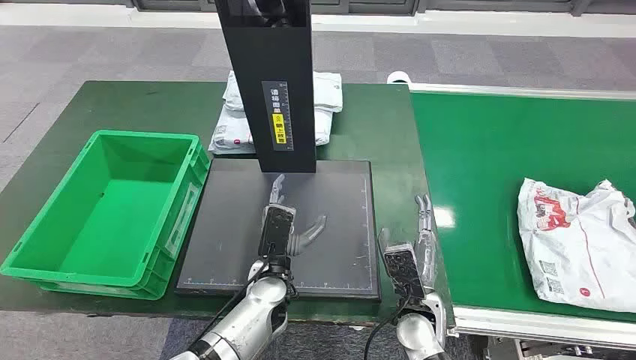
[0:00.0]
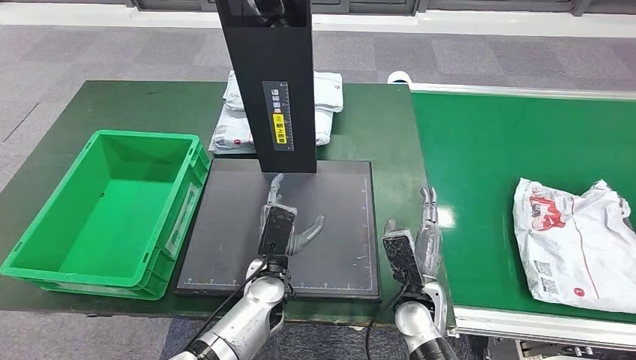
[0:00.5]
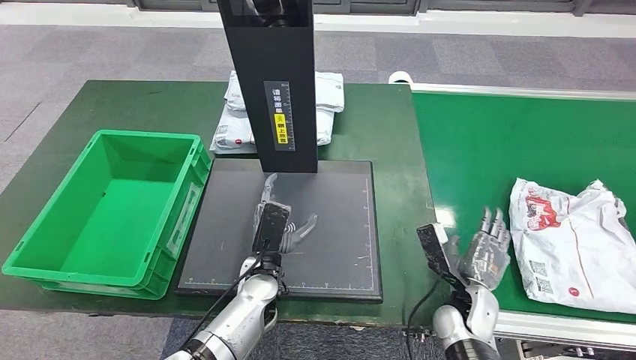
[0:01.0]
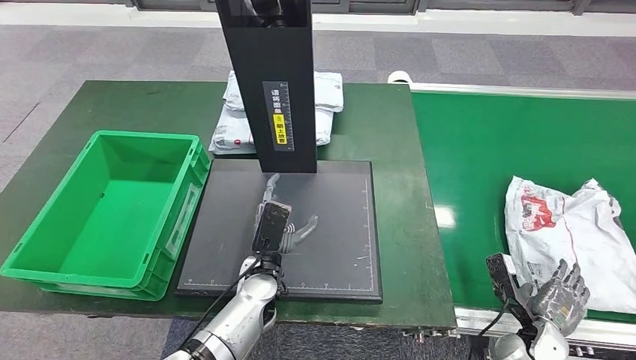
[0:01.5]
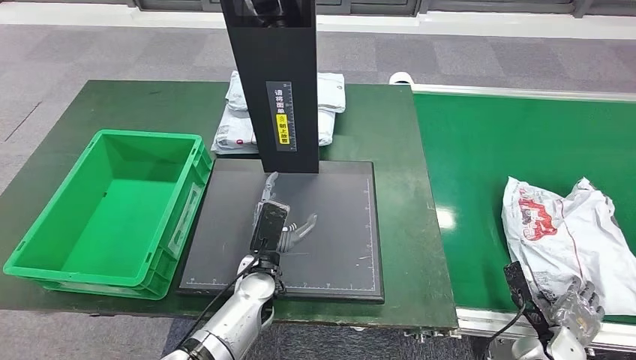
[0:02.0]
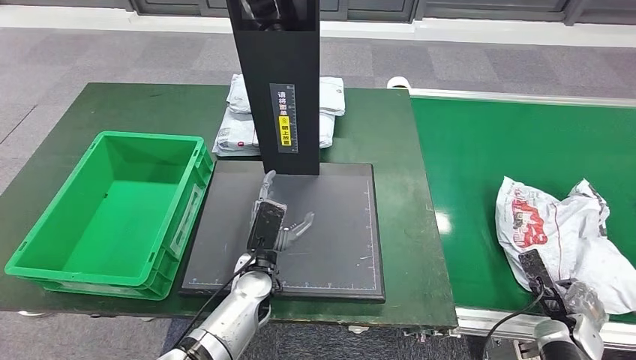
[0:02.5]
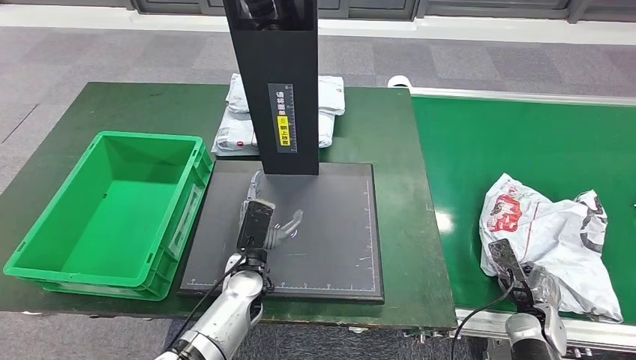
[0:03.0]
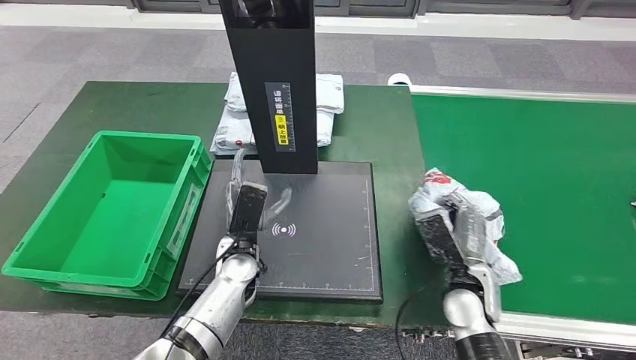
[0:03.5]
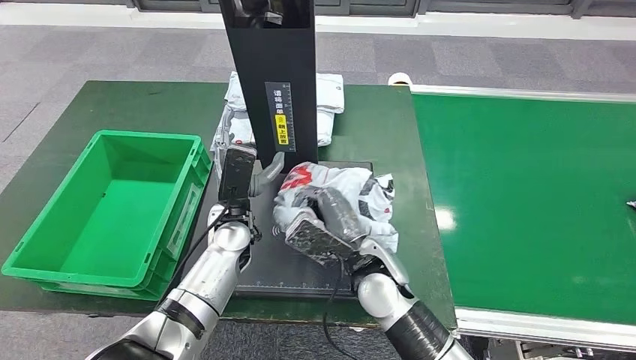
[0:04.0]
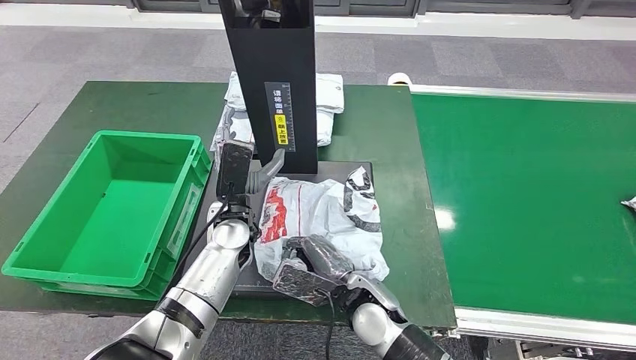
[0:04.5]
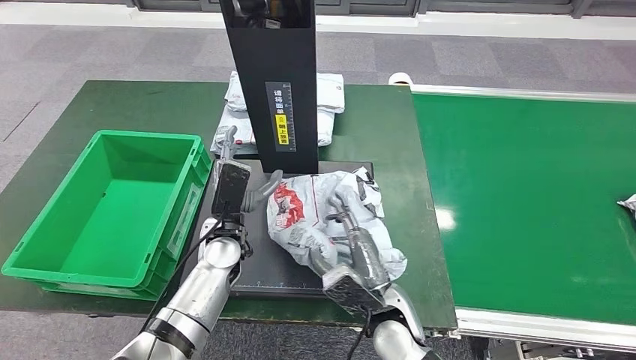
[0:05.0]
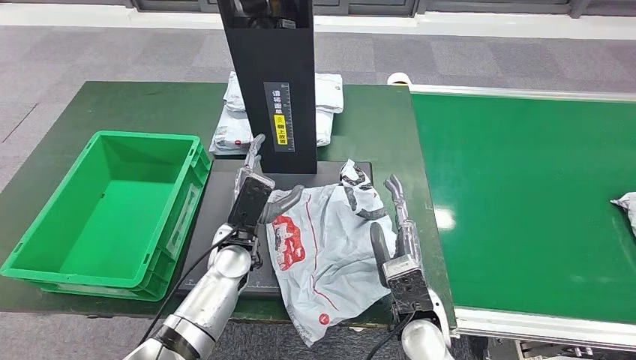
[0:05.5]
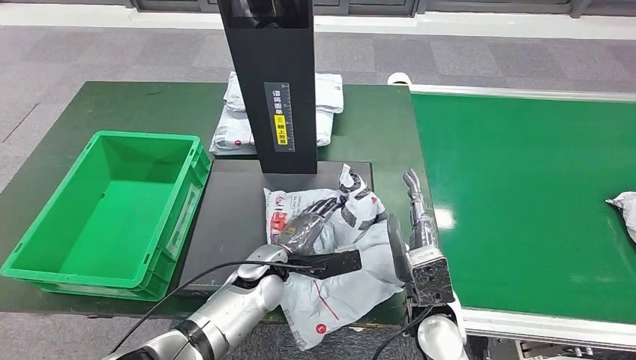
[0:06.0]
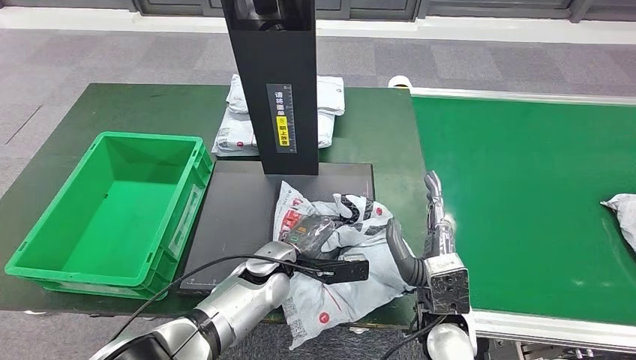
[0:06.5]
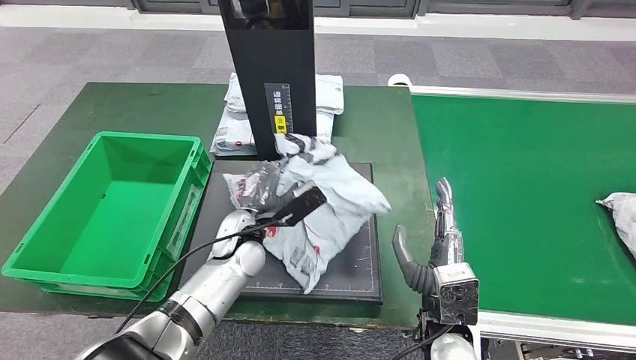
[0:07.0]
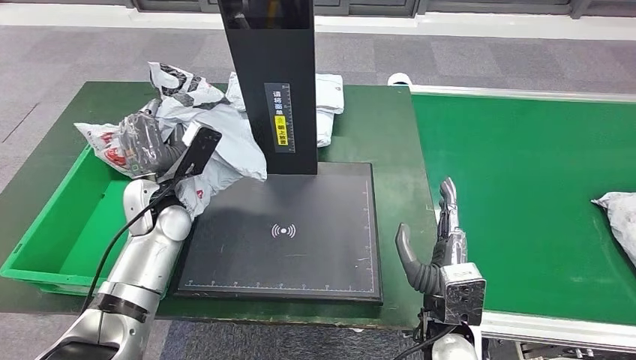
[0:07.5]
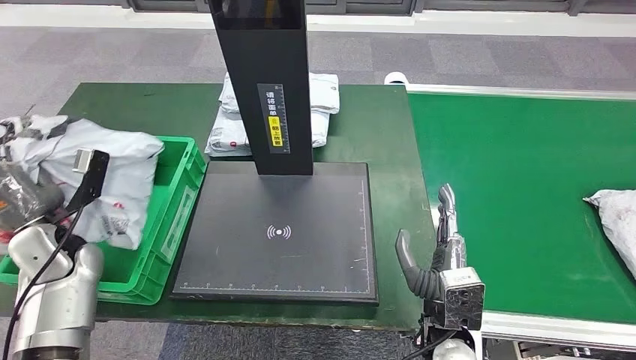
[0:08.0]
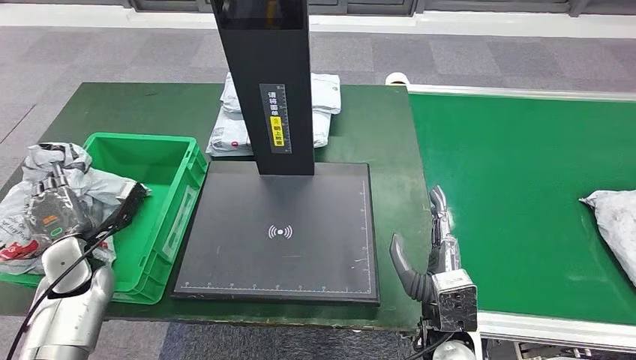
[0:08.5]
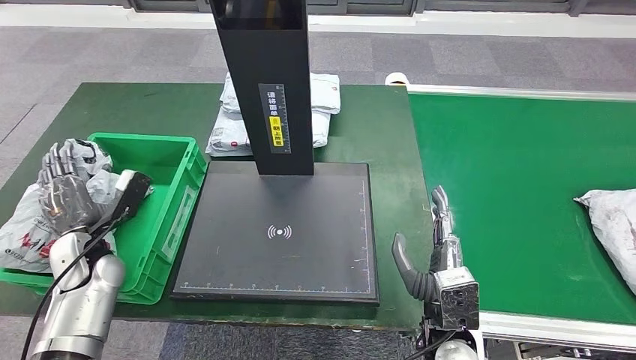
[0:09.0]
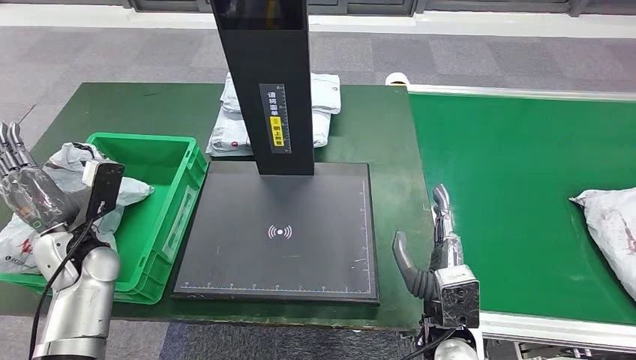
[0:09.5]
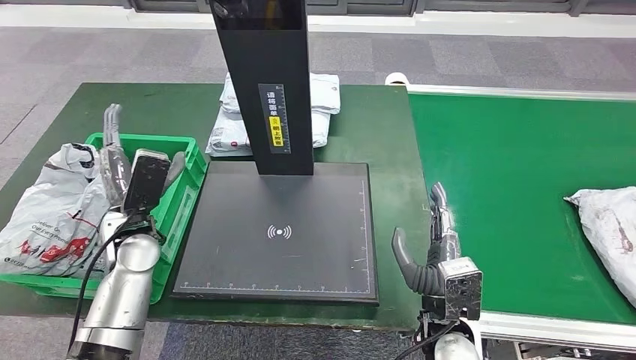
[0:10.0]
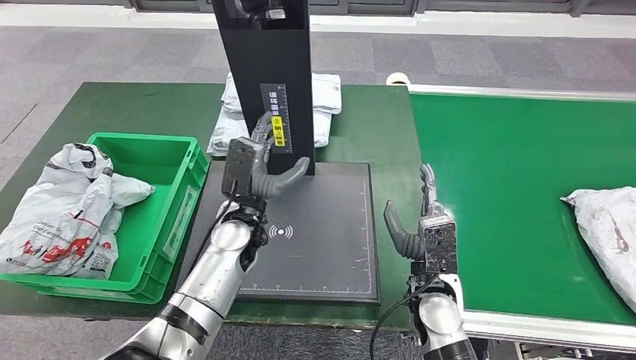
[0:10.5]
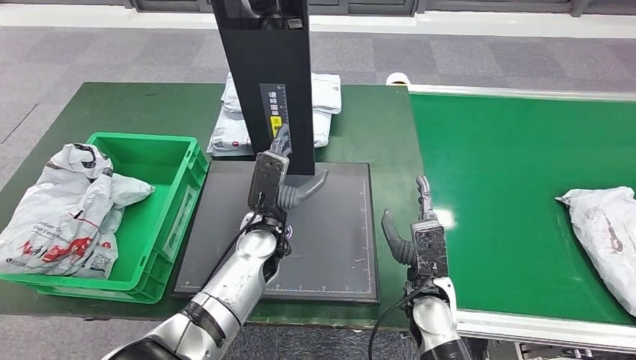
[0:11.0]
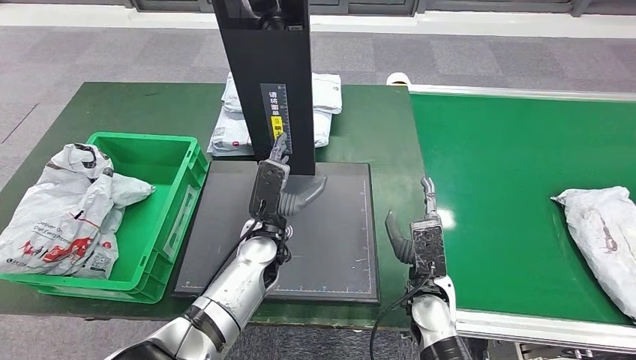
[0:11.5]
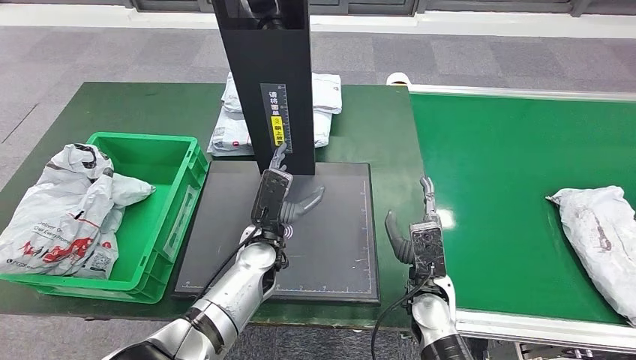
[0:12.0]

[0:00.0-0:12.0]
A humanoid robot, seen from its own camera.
Step, 0:00.0 to 0:03.5: Take the parcel off the conveyor belt.
Step, 0:04.0 to 0:06.0: Place the parcel onto the inbound machine.
Step, 0:07.0 to 0:08.0: Pick up the parcel from the inbound machine.
Step, 0:08.5 to 0:10.0: Put the parcel inside the courier box.
0:04.0 to 0:06.0: The right hand shifts about 10 cm to the right and backward. The left hand is displaced downward and backward by some 10 cm.
0:08.0 to 0:10.0: The left hand travels to the right by approximately 10 cm.

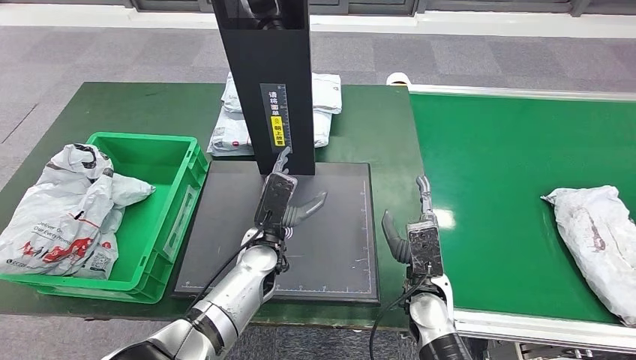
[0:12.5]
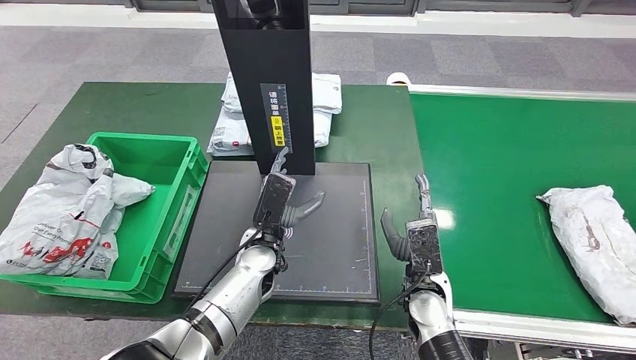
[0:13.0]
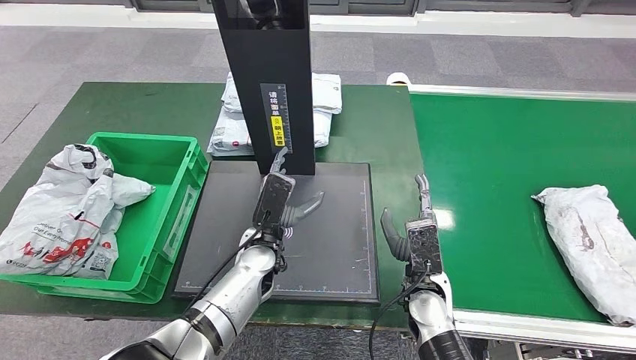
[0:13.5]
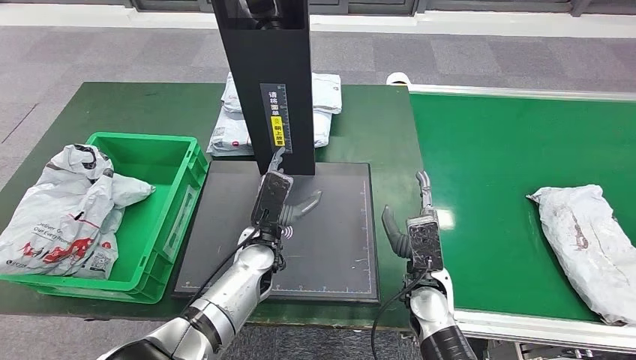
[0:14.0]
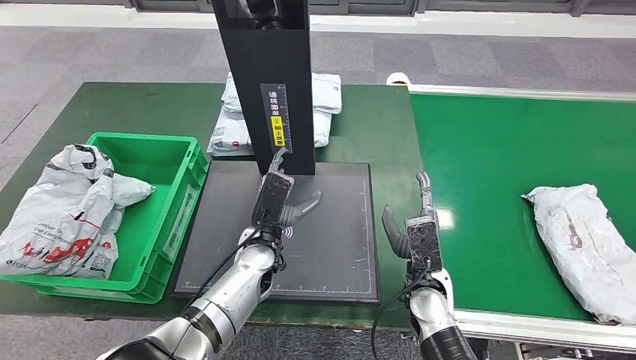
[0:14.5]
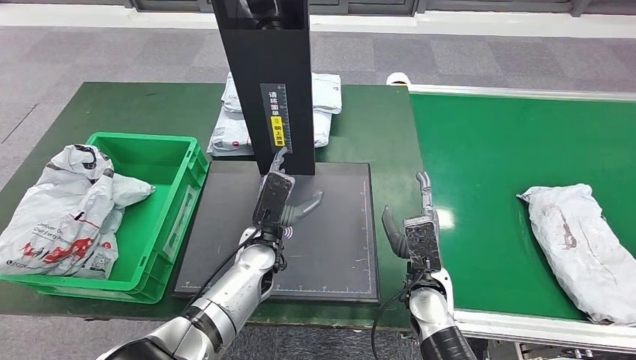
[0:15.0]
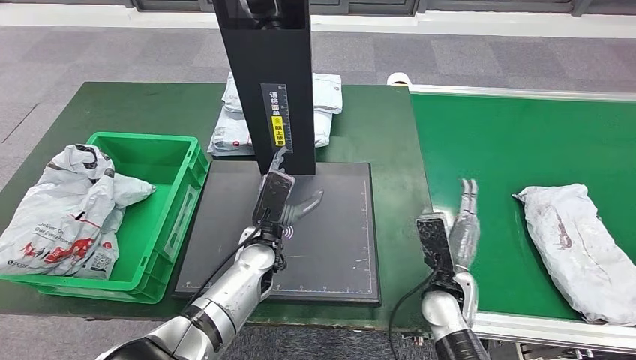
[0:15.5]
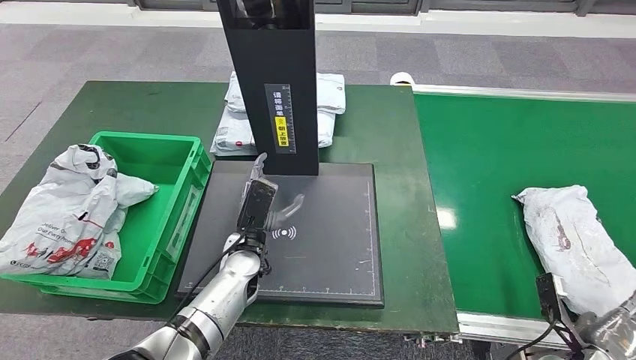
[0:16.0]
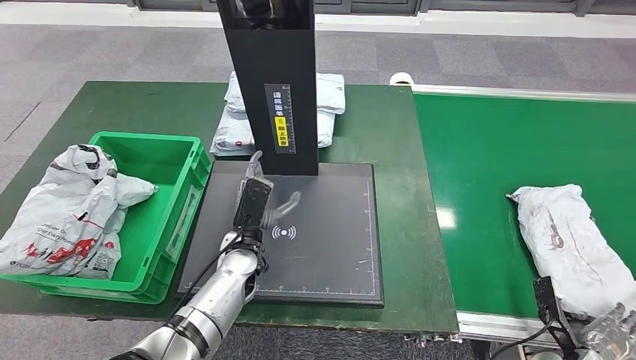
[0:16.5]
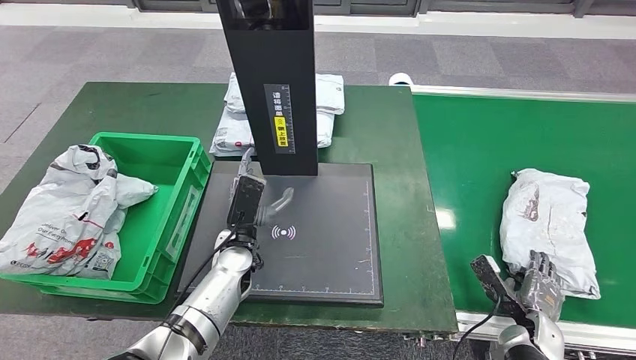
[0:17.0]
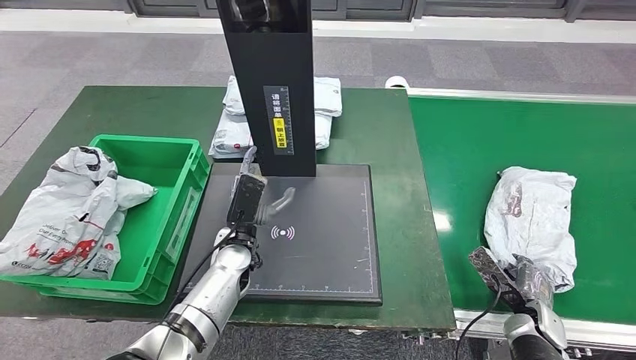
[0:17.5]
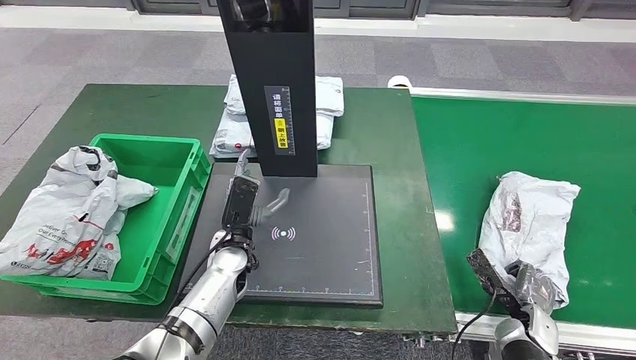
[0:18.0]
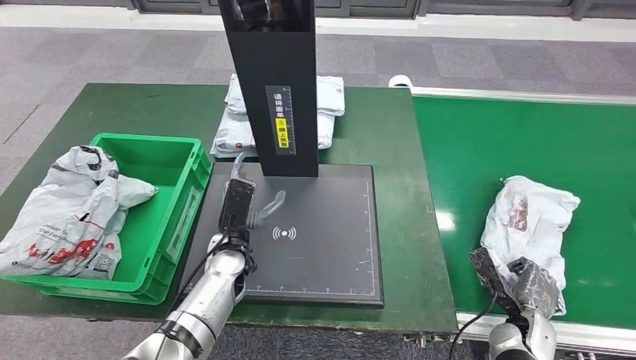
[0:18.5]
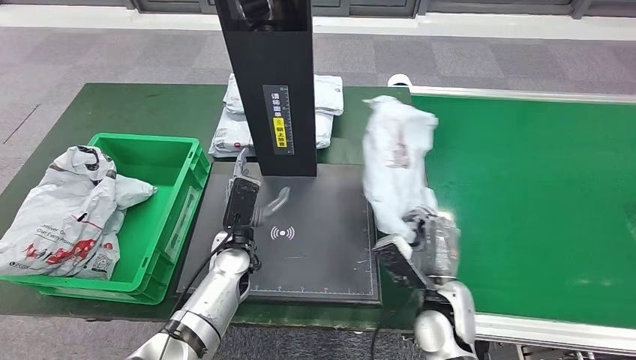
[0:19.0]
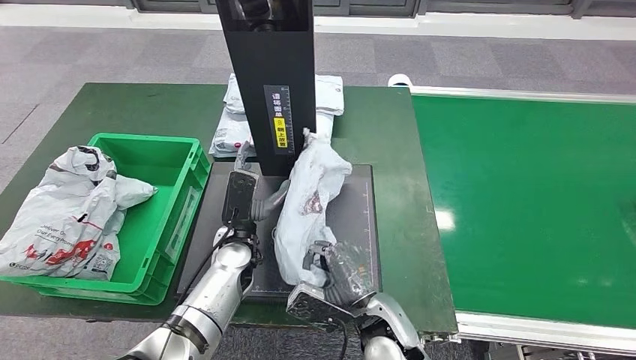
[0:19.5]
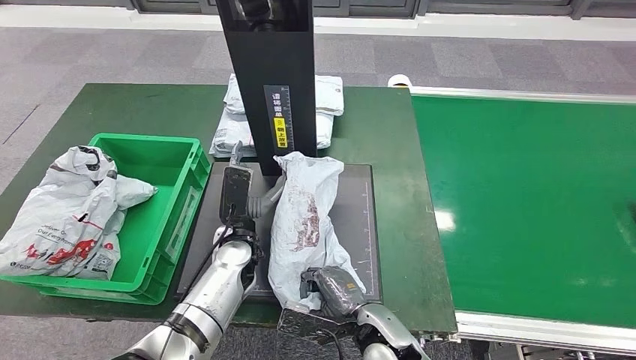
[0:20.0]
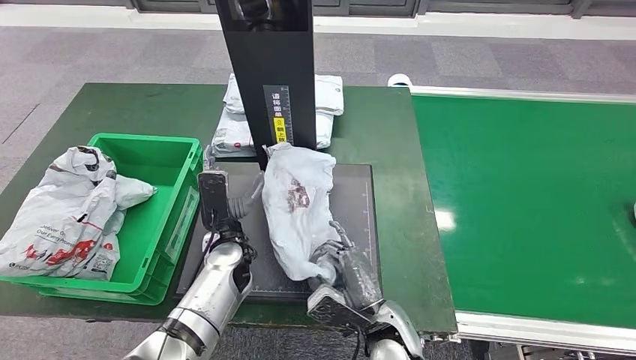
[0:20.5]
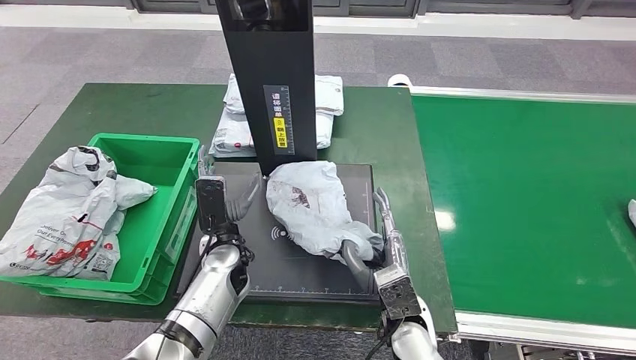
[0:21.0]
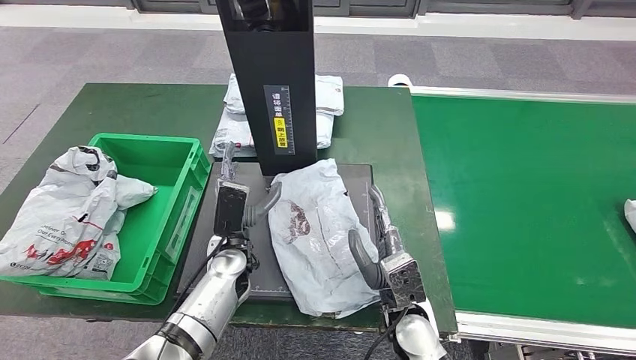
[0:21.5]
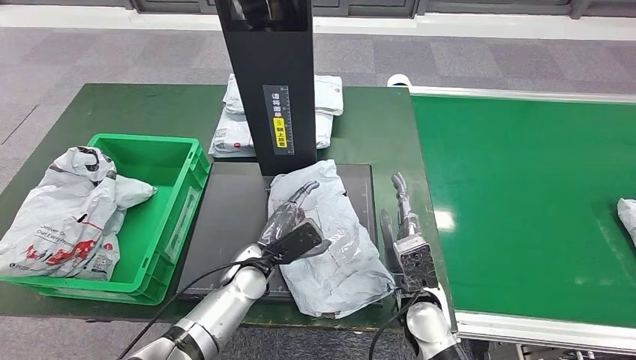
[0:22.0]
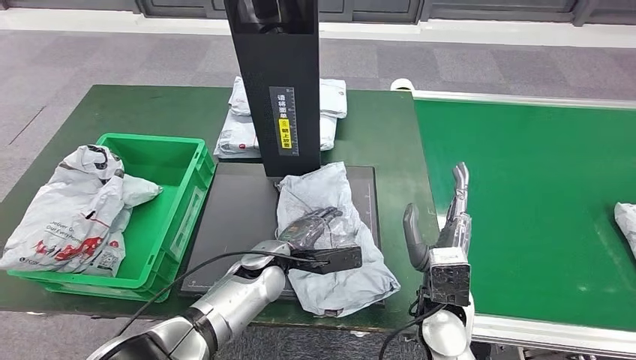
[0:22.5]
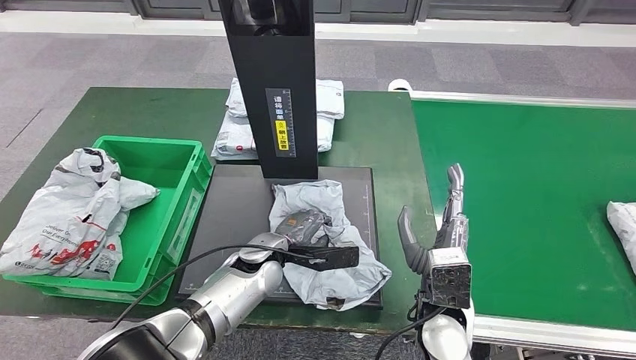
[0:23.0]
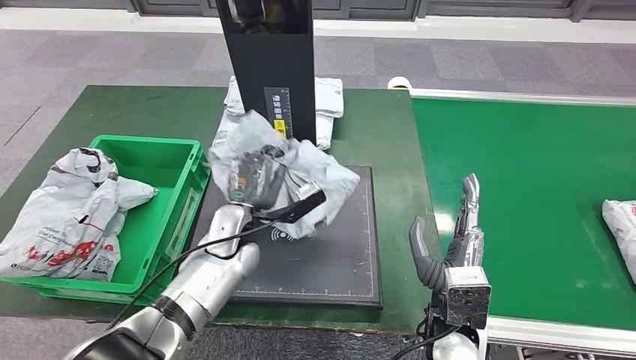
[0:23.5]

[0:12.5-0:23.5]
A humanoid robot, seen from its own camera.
Step, 0:12.5 to 0:18.5: Pick up the parcel from the conveyor belt.
Step, 0:19.5 to 0:20.5: Place the parcel onto the inbound machine.
0:12.5 to 0:14.5: Both hands stay about where they are.
0:18.0 to 0:20.0: The right hand is displaced to the left by about 30 cm.
0:20.0 to 0:21.5: The right hand changes place by about 5 cm.
